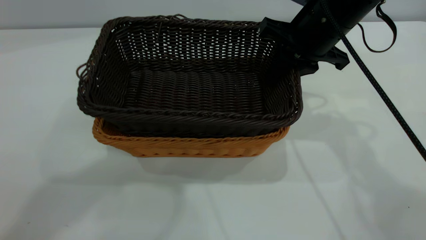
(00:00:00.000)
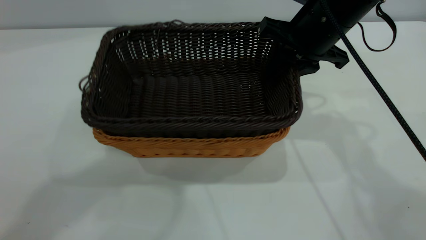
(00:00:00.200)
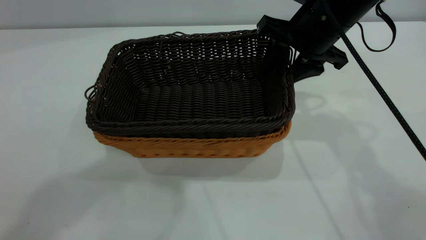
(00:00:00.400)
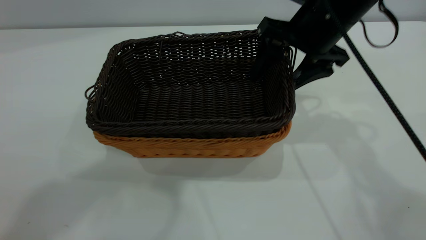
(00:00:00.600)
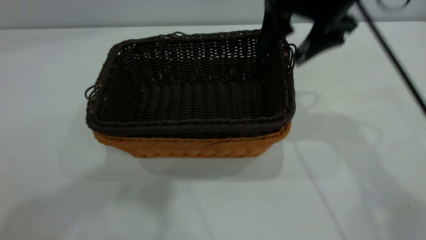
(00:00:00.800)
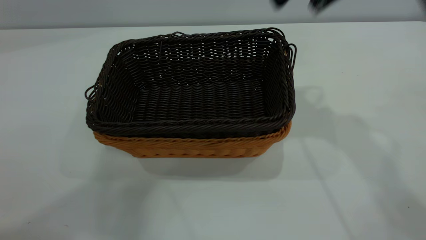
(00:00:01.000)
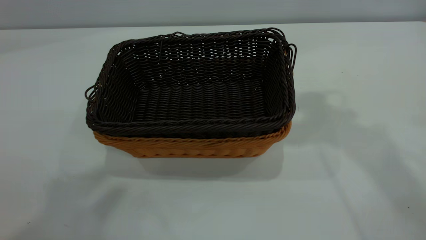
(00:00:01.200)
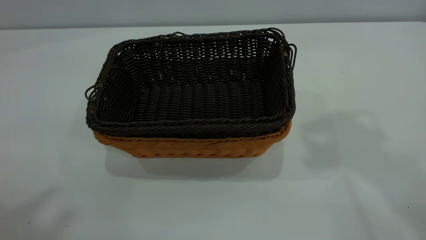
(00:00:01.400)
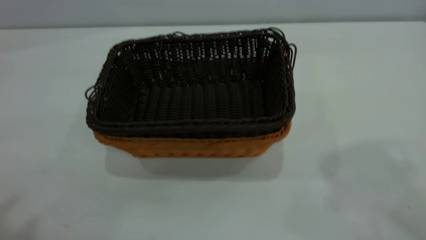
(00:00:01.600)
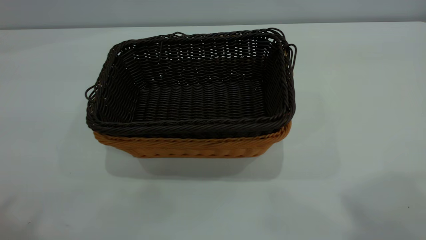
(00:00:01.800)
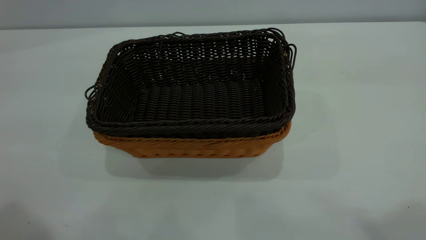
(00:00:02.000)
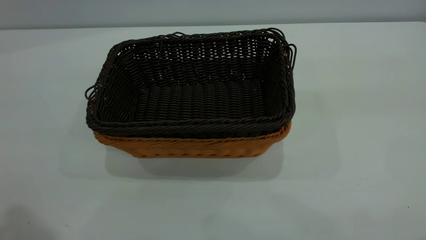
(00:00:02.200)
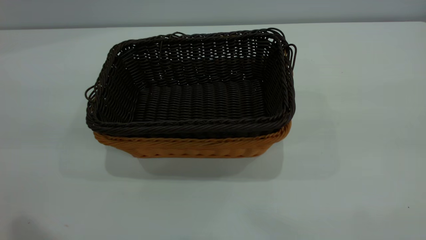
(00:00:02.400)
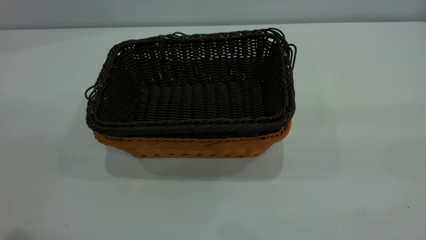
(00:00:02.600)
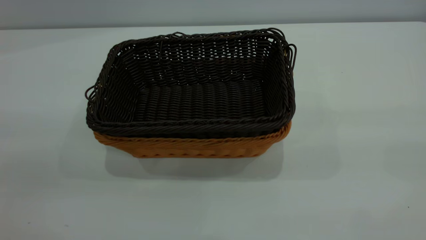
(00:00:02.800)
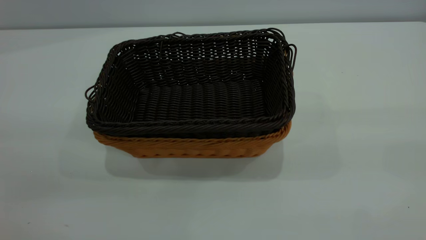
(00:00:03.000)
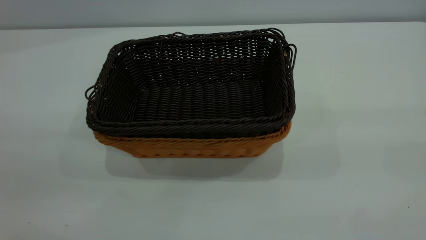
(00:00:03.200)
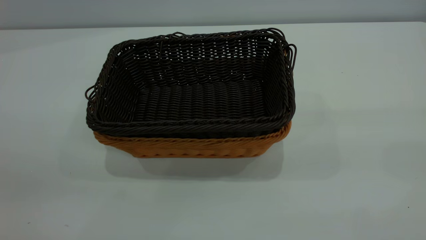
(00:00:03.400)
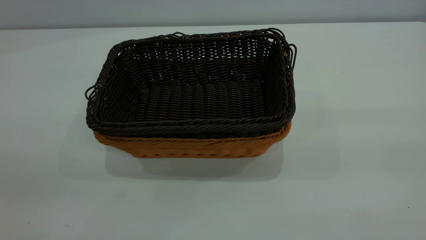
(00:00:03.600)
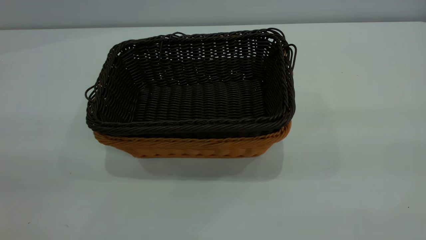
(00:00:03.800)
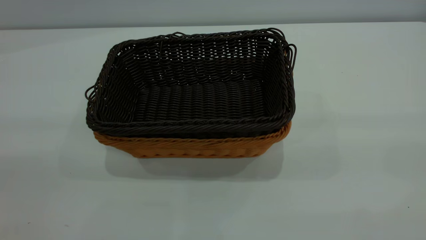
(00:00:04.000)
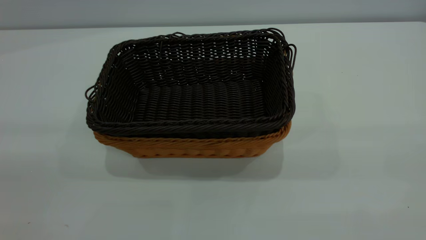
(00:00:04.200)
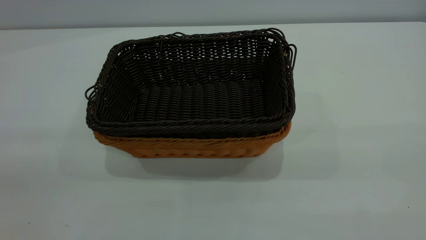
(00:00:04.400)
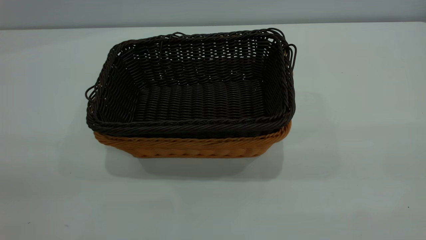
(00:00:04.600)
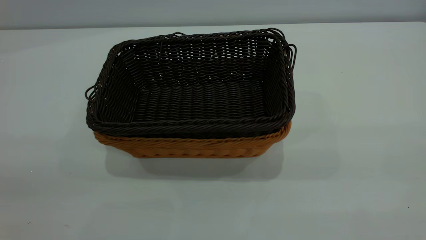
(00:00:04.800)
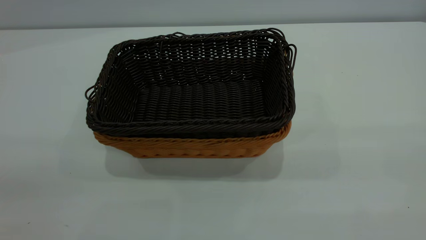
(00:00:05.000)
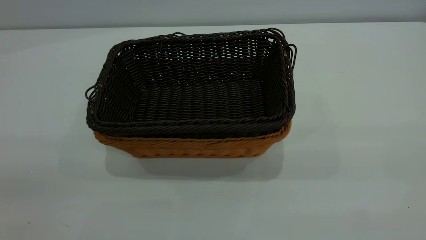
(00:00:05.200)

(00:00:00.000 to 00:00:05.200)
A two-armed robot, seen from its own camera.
Task of the whole recording: the left gripper grasp the brown basket and place it in the center of the table, the right gripper grasp the black basket and place it inside the brown one.
00:00:00.000 - 00:00:01.800: The right gripper goes about 40 cm upward and backward, and opens. Meanwhile the left gripper travels backward and to the left by roughly 20 cm.
